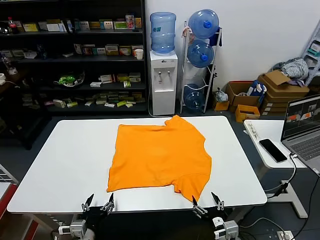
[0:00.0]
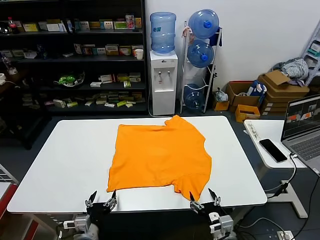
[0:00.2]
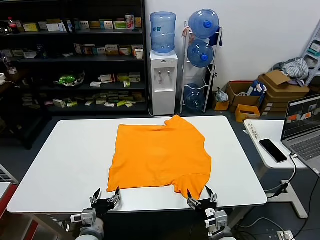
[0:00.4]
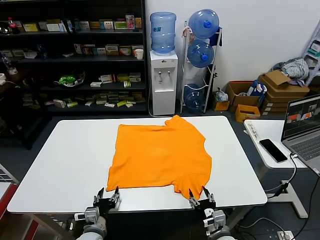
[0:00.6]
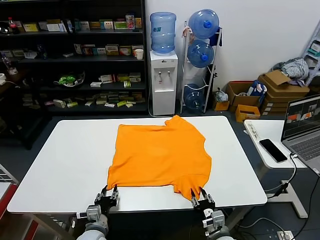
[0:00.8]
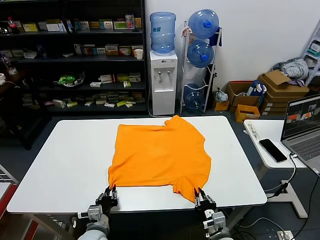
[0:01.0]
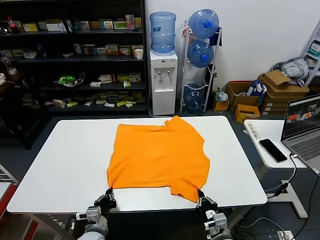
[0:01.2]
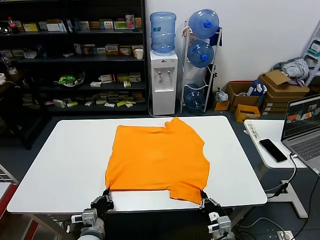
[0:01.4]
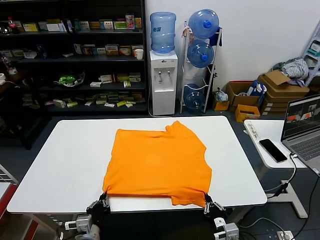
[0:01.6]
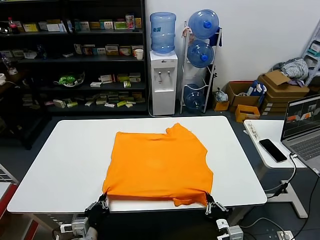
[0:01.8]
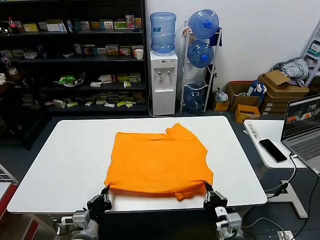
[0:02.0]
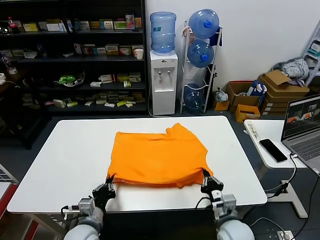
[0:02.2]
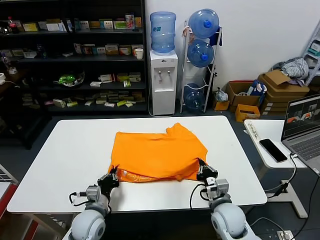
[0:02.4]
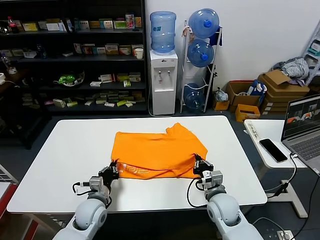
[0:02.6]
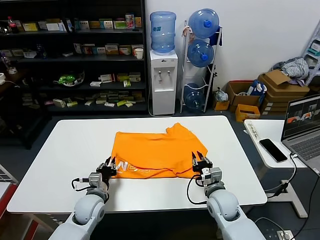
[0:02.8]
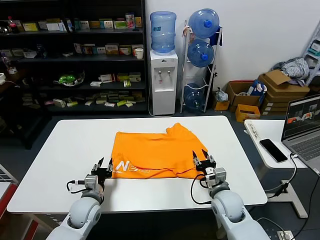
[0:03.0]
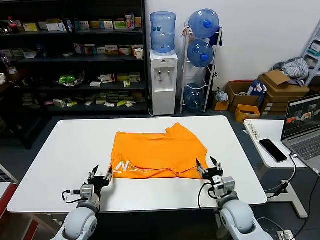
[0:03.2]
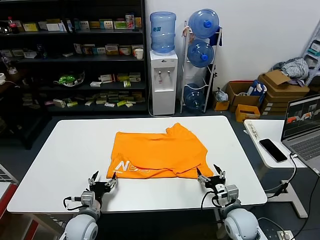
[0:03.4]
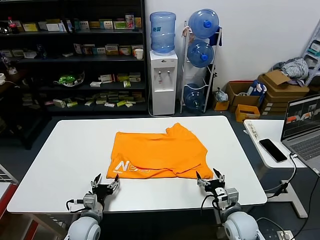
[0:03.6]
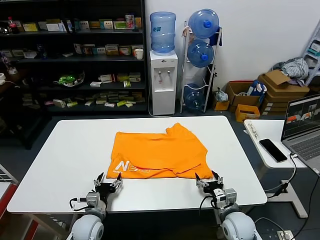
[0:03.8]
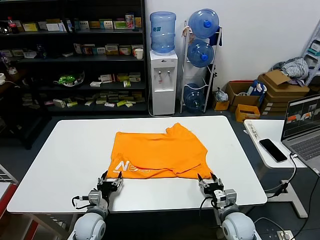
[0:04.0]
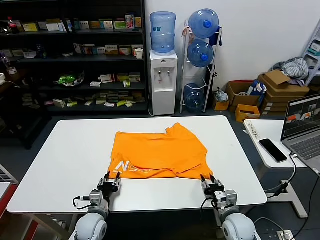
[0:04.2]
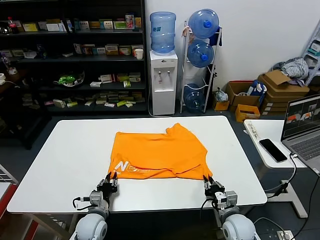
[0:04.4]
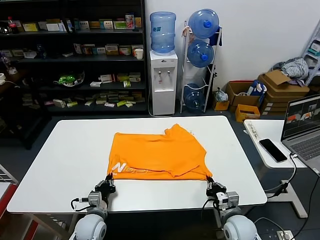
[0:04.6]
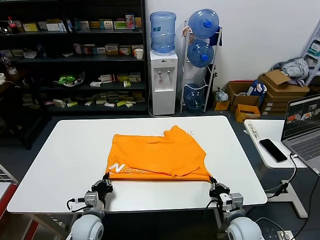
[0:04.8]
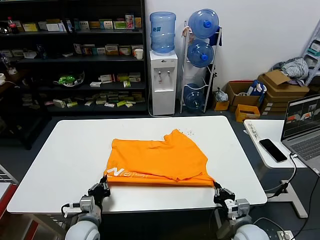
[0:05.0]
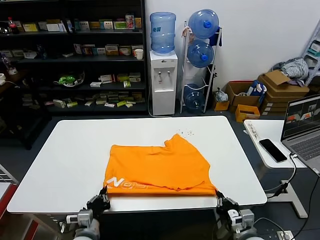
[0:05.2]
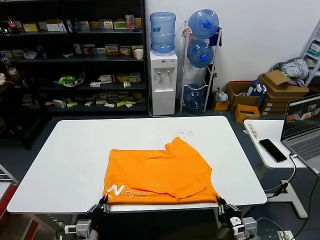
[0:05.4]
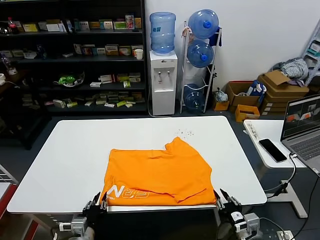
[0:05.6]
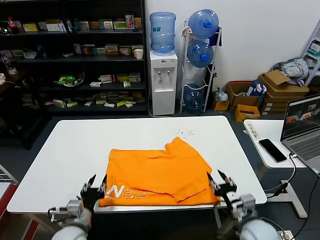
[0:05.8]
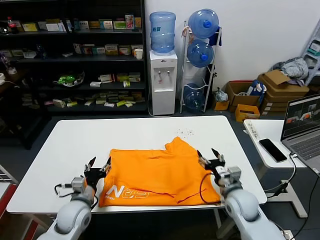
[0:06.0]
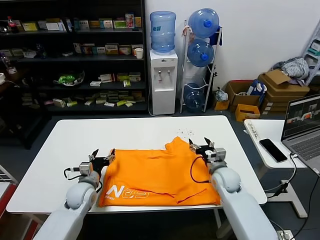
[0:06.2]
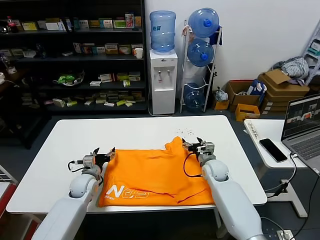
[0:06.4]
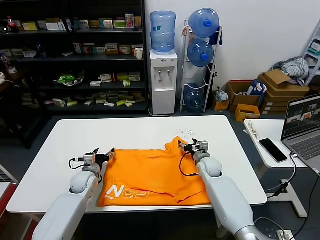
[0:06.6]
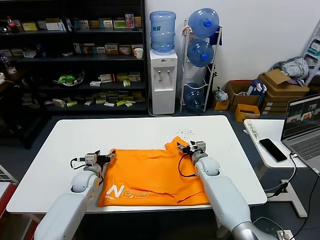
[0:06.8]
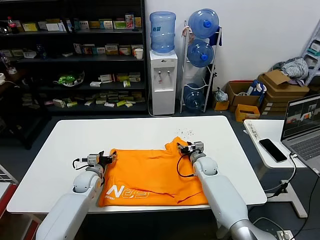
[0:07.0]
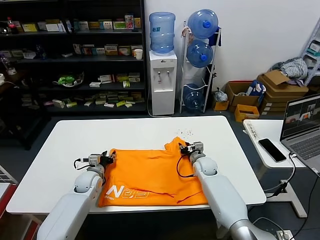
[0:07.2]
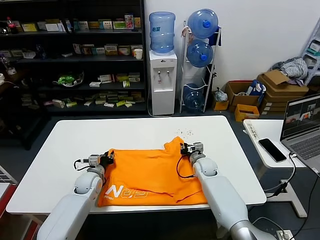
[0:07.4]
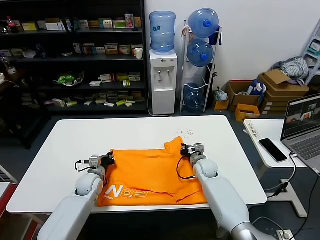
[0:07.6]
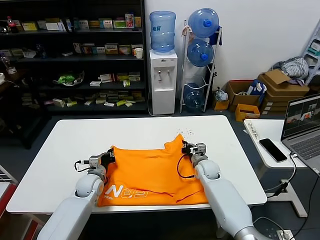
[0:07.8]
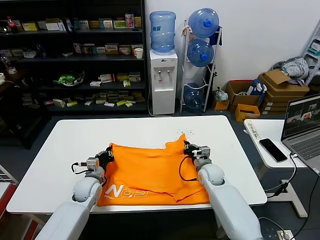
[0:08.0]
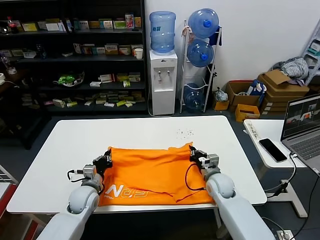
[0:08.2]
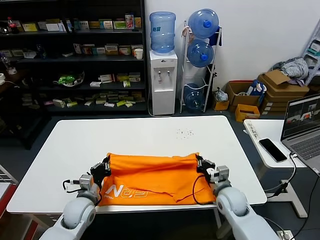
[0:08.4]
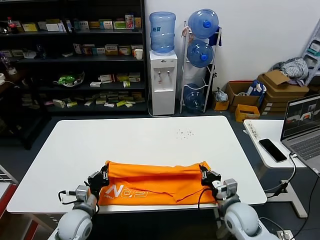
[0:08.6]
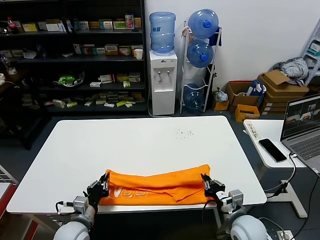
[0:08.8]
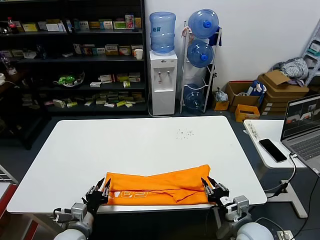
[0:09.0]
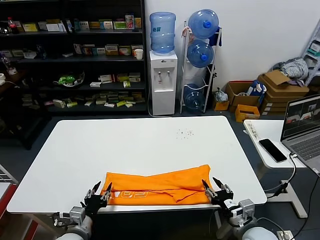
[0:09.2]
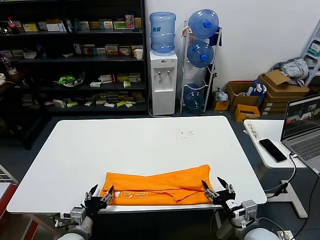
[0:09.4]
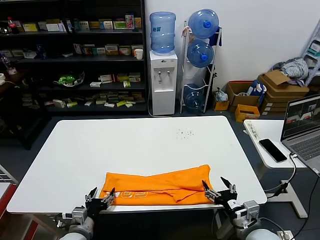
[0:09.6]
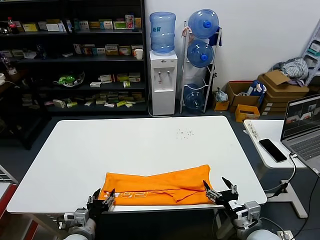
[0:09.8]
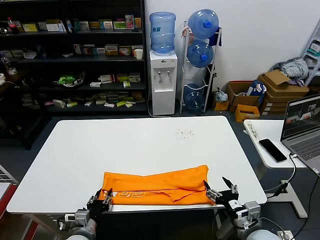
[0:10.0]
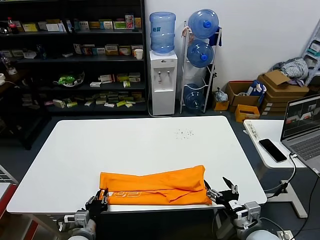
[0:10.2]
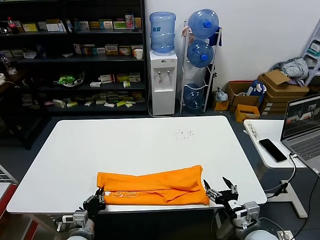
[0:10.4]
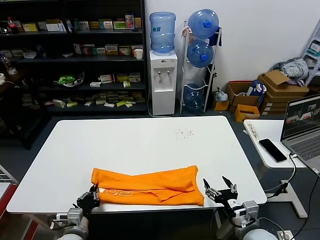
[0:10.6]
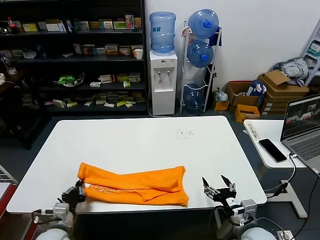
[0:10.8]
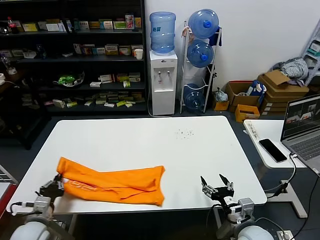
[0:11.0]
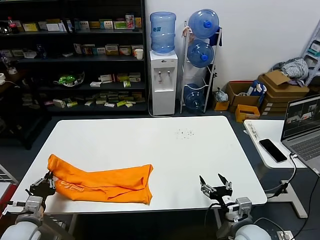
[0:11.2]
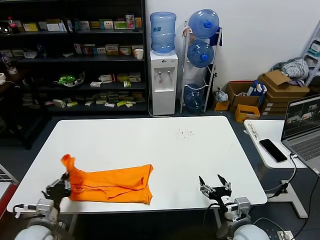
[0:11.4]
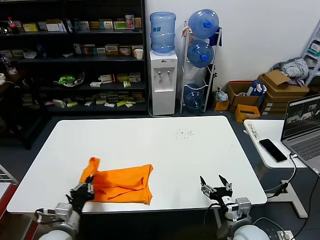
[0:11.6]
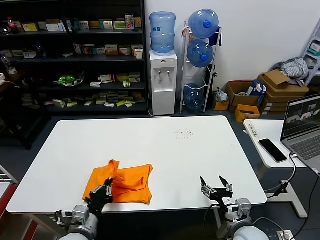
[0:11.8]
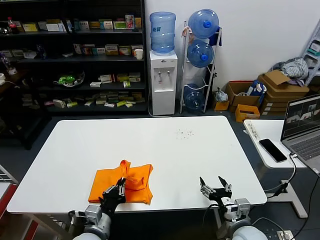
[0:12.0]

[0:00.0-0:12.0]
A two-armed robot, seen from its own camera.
Task of the whole recording: fold and organize the clothes.
Step, 0:00.0 to 0:01.2: use both grippers simultaneously to clamp the lower edge of the clothing fabric.
Step, 0:01.4 to 0:02.8: use both grippers to drag the lower edge of the fabric forward and fold it over the upper edge.
Step, 0:03.0 to 0:05.4: Drag the clothes downward with both gripper.
Step, 0:05.8 to 0:07.6: use both grippers simultaneously to clamp the upper edge of the clothing fabric.
Step, 0:07.8 to 0:09.0: use both grippers to drag the upper edge of the fabric backward and fold it over the lower edge.
Step, 0:09.2 to 0:10.4: use the left gripper to clamp the left edge of the fabric.
0:01.6 to 0:03.0: Both grippers move forward, approximately 15 cm. The right gripper opens, while the left gripper opens.
0:03.0 to 0:04.4: Both grippers travel together downward, about 5 cm. The right gripper closes, while the left gripper opens, then closes once more.
0:04.4 to 0:06.0: The left gripper shifts about 10 cm upward, travels backward and back again, roughly 10 cm each way, and opens its fingers. The right gripper heads forward and upward, covering about 10 cm, and opens its fingers.
0:06.0 to 0:07.6: The left gripper goes approximately 15 cm forward and downward, and closes, while the right gripper goes approximately 15 cm forward, downward and to the left, and closes up.
0:07.6 to 0:09.0: Both grippers travel together backward, roughly 25 cm. The right gripper opens.
0:09.0 to 0:10.4: The left gripper opens and closes again. The right gripper opens up.
0:10.4 to 0:12.0: The left gripper is displaced upward by roughly 5 cm, and goes to the left and returns, some 15 cm each way.

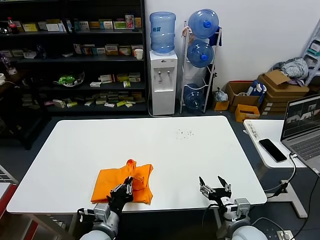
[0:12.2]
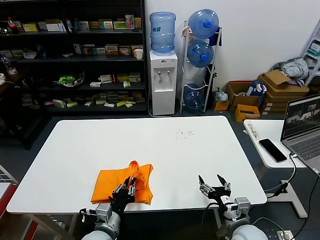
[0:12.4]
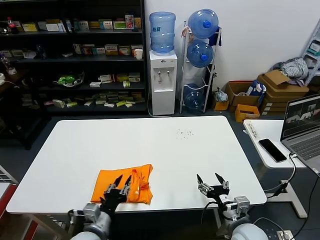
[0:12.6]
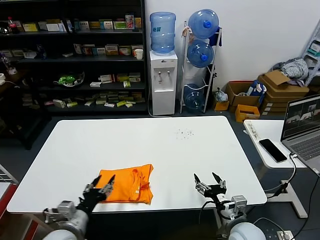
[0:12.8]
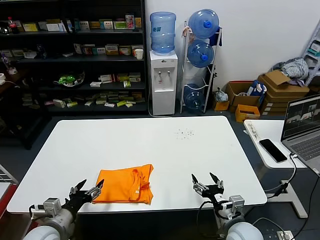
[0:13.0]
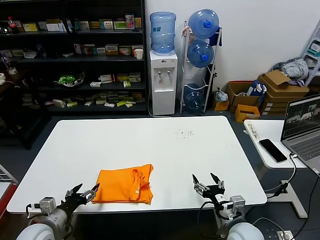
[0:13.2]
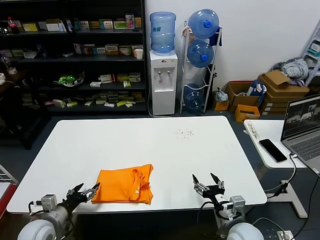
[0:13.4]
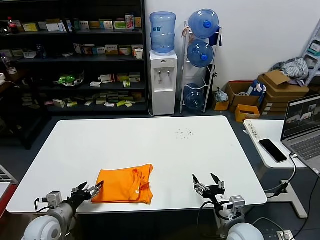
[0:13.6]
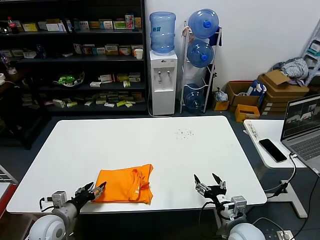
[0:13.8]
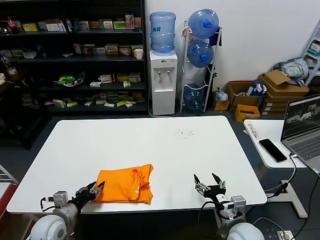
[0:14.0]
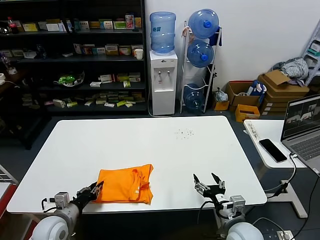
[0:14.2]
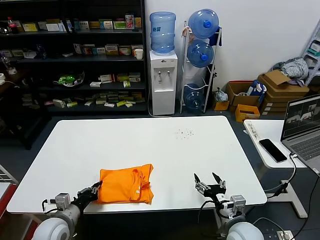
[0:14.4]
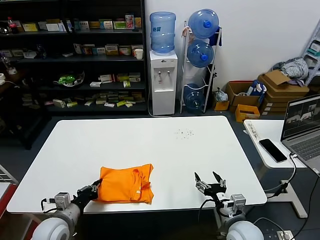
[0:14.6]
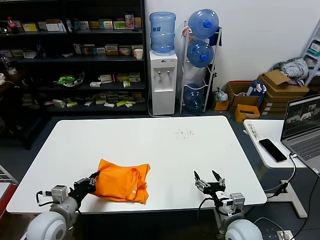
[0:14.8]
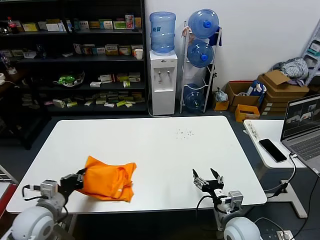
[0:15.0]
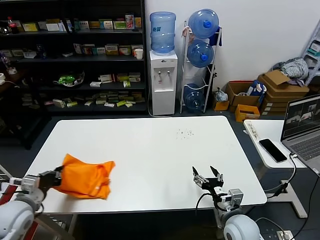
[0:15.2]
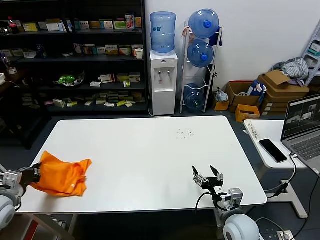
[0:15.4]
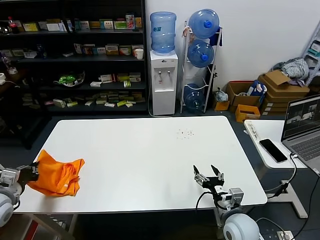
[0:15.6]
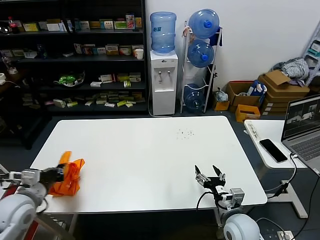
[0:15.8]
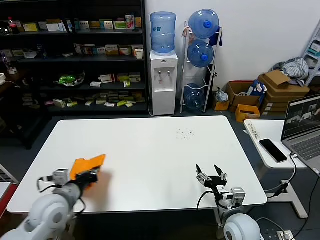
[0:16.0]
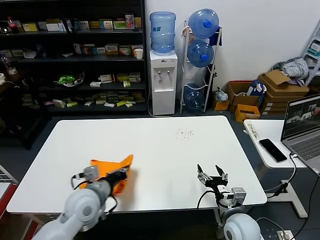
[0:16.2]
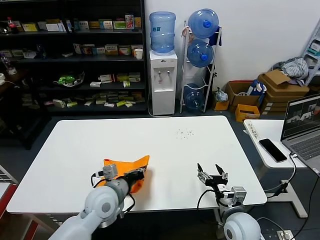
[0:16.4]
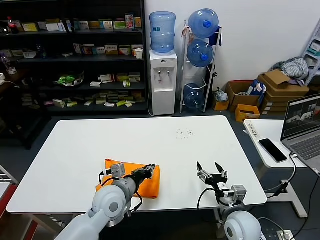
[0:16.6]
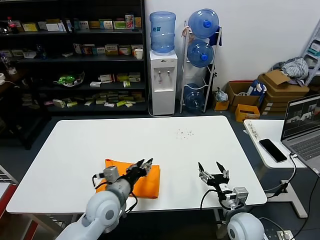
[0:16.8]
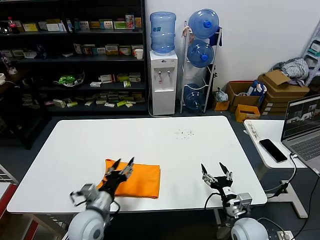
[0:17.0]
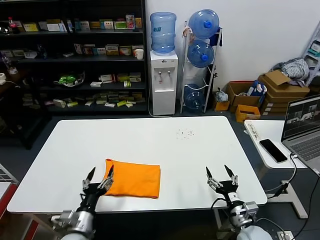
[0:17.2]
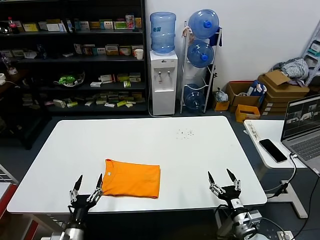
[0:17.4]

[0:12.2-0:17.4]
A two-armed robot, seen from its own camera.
Task of the whole recording: fold and organize the clothes.
Step, 0:12.8 to 0:16.8: Flip the folded clothes over with left gripper.
0:12.2 to 0:14.0: The left gripper is displaced to the left by about 15 cm, and opens up.
0:14.0 to 0:15.6: The left gripper moves upward and to the left, roughly 20 cm, and closes up.
0:15.6 to 0:17.4: The left gripper travels to the right, downward and backward by about 25 cm, and opens up. The right gripper goes some 5 cm to the right.
